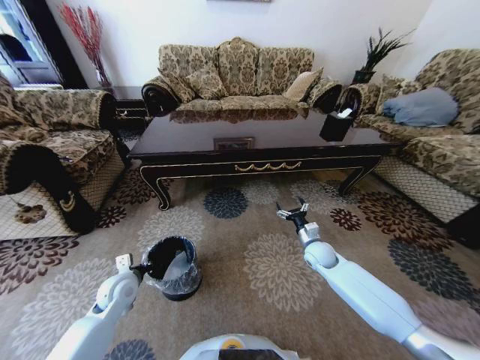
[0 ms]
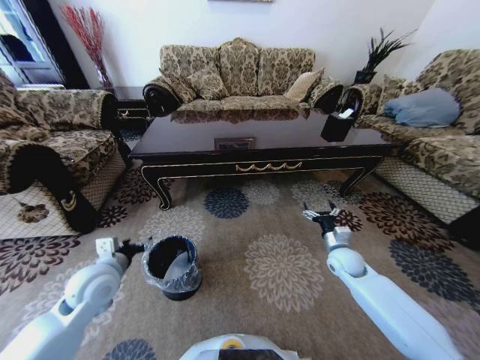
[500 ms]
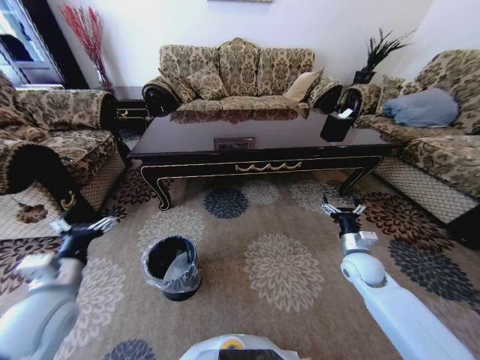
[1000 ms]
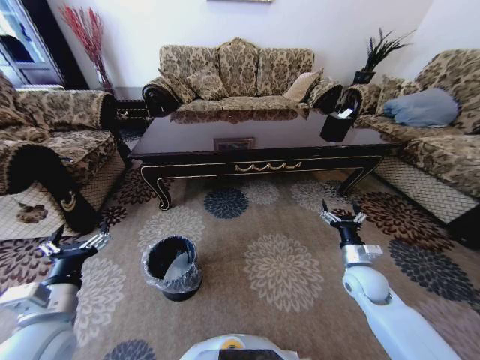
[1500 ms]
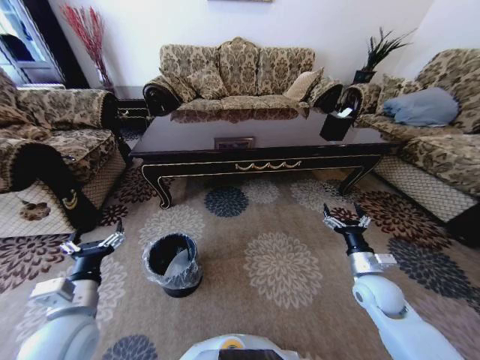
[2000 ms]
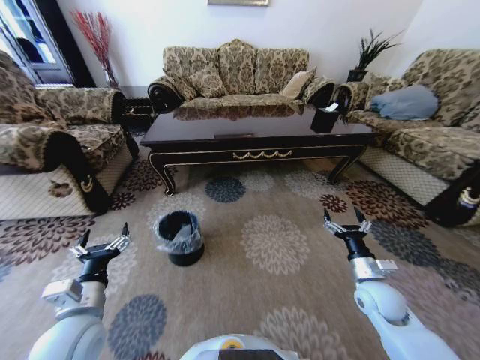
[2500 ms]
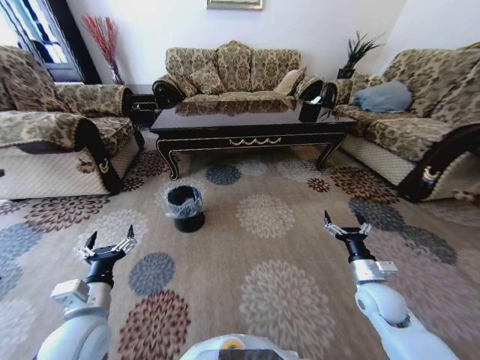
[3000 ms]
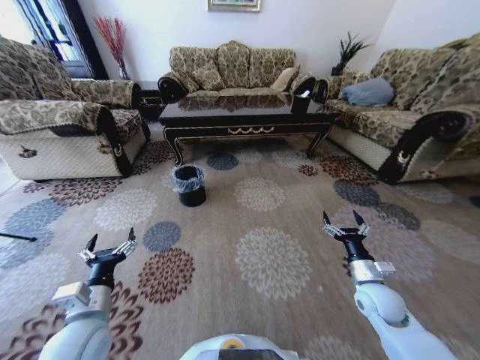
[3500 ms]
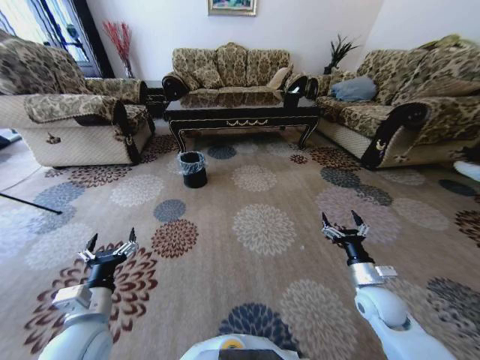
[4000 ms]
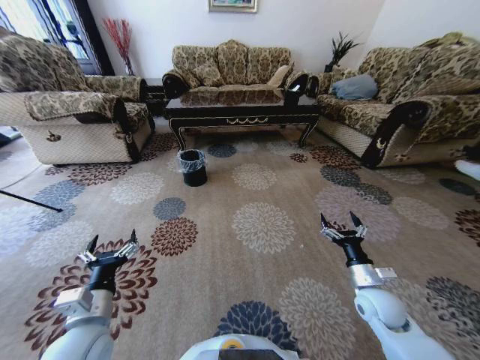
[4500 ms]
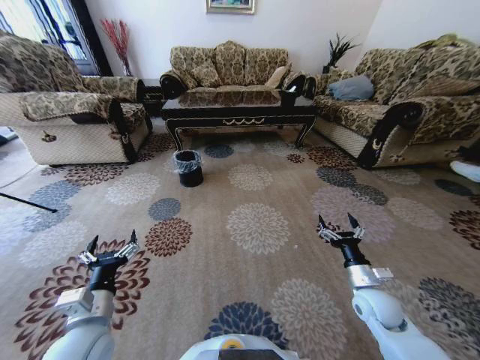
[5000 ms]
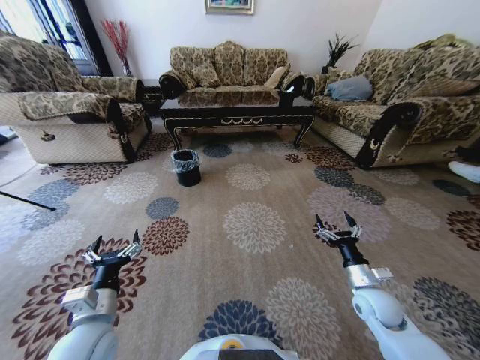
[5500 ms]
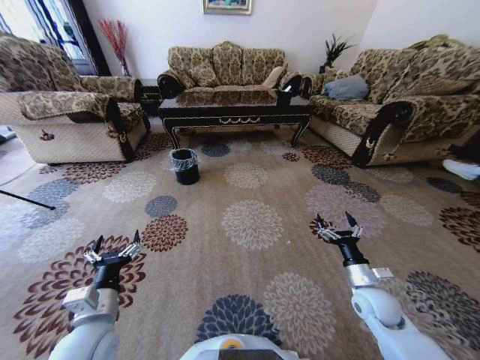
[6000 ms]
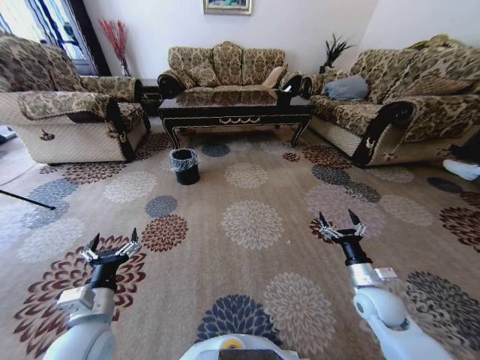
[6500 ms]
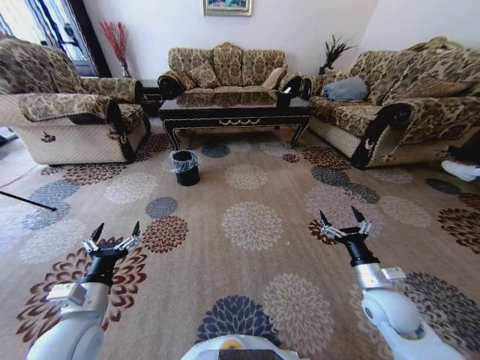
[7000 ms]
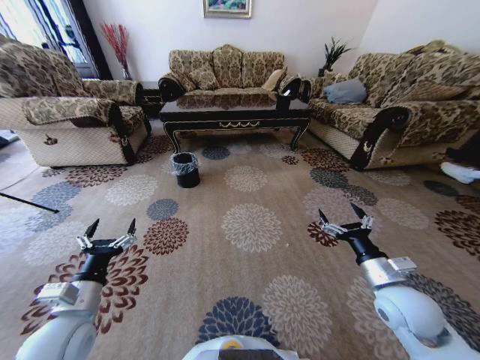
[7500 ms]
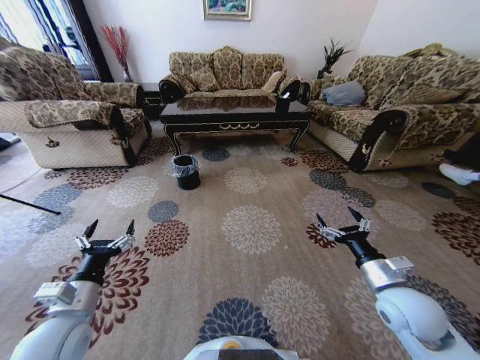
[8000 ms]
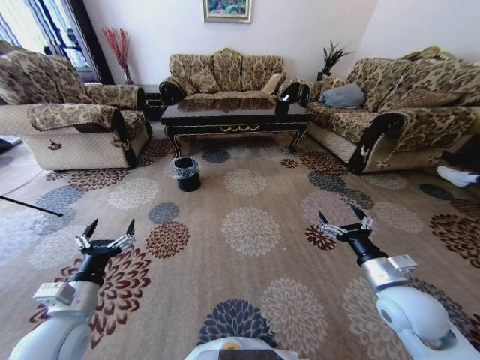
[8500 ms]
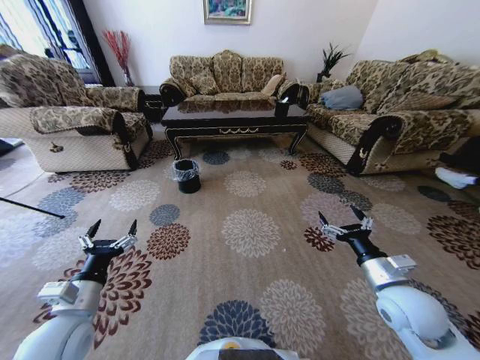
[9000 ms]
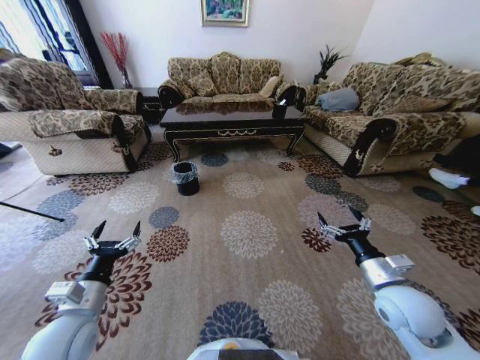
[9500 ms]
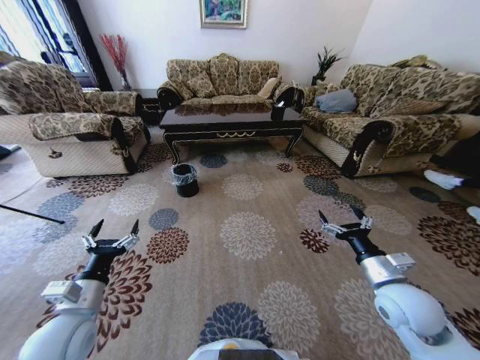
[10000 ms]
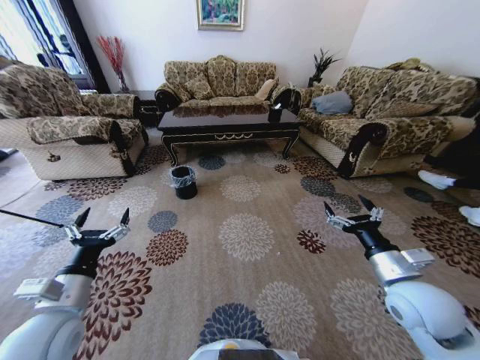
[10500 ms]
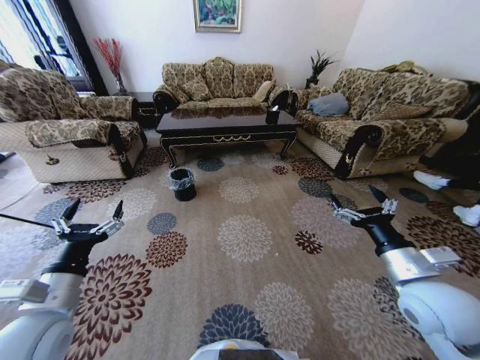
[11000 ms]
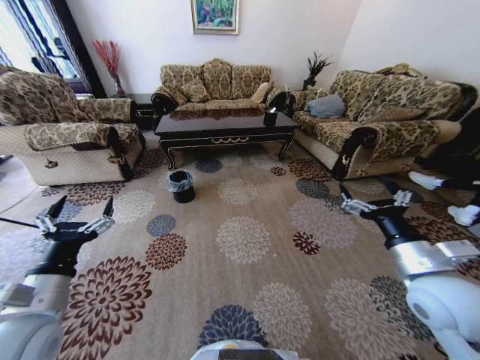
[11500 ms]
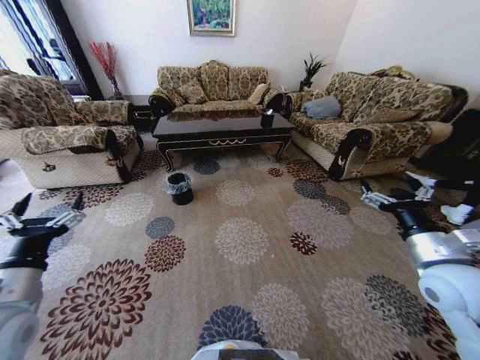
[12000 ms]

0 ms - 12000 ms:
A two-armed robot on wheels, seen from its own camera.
Task of the whole recording: Move to the front of the table and pick up the trash from the floor, then place it into the trash bin.
0 ms - 2000 ms: The right gripper moves backward and to the right, some 15 cm; the left gripper heads backward and upward, covering approximately 15 cm, and opens its fingers.
6000 ms - 8000 ms: The left gripper travels to the left by approximately 5 cm; the right gripper shifts roughly 10 cm upward.
10000 ms - 12000 ms: The right gripper heads upward, covering about 10 cm. Meanwhile the left gripper travels upward and to the left by approximately 10 cm.

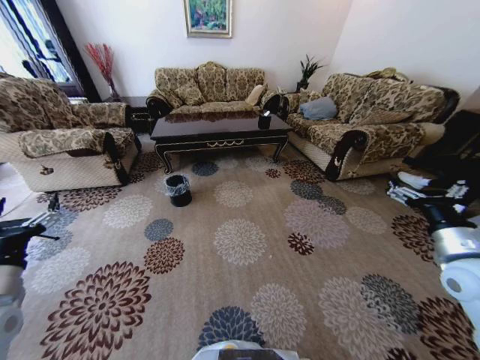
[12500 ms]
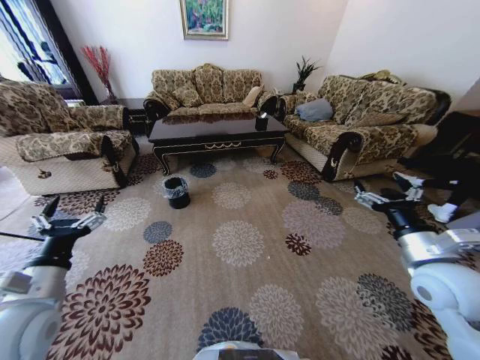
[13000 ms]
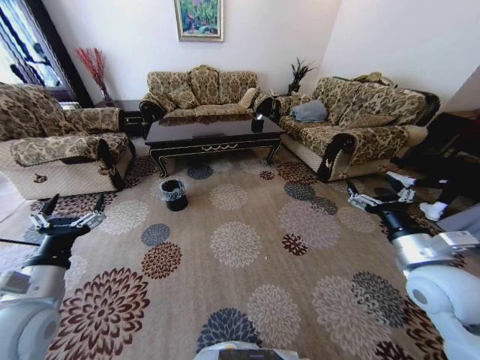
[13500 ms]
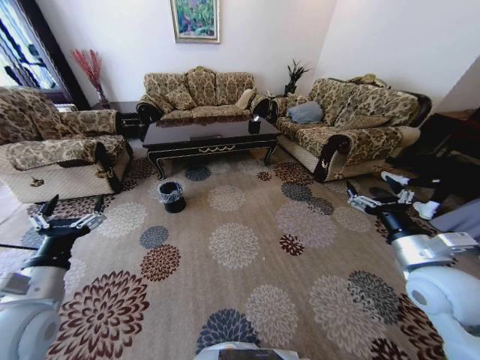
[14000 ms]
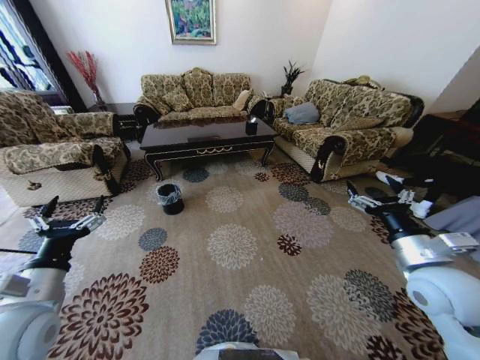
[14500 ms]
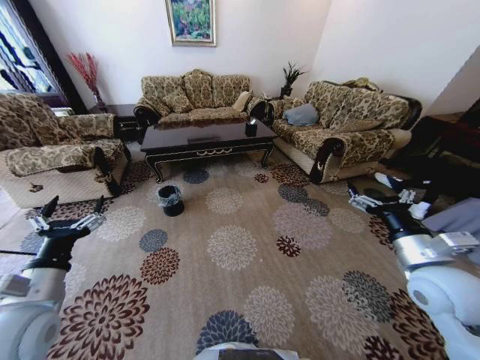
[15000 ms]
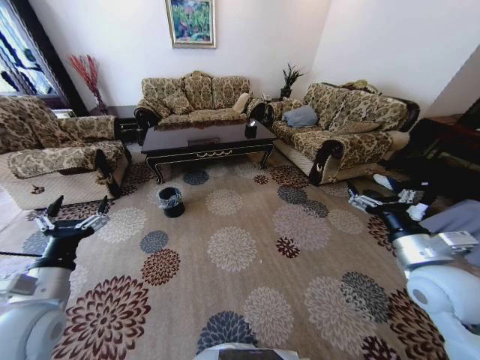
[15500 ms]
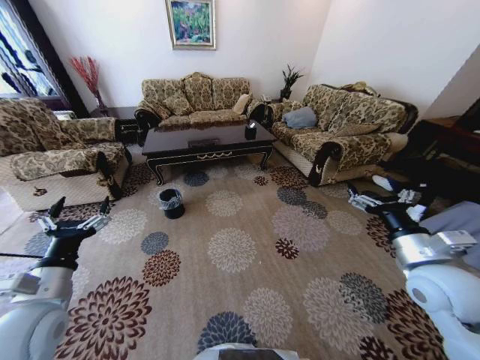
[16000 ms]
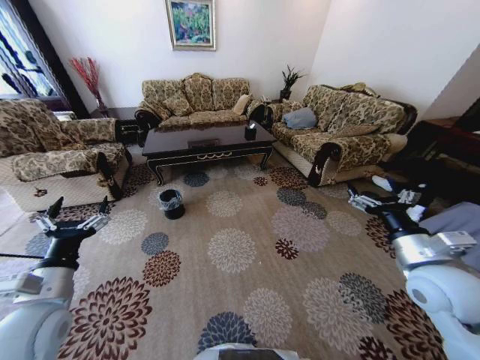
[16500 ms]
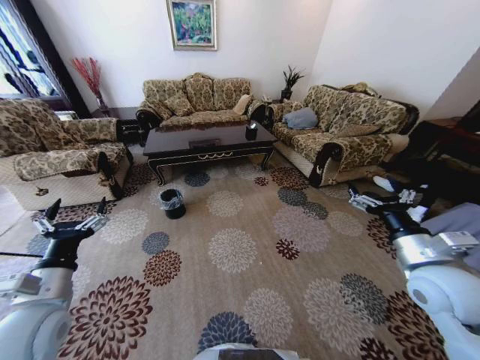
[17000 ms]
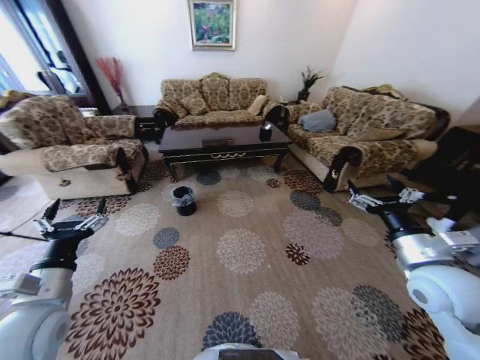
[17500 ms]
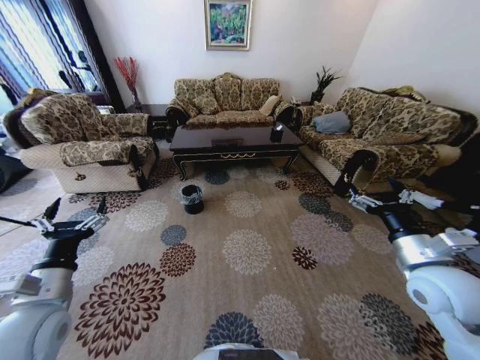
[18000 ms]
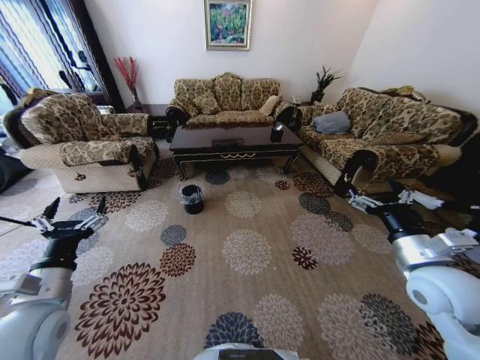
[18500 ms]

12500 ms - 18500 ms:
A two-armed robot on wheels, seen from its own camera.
Task of the whole recording: Move to the front of the table and pick up the trash from the floor, then place it into the trash bin.
12500 ms - 14500 ms: The right gripper shifts approximately 5 cm to the left. Meanwhile the left gripper shifts roughly 10 cm to the right.
